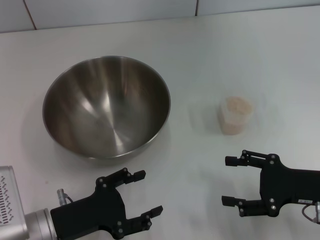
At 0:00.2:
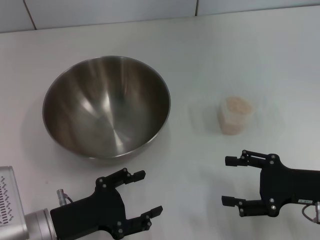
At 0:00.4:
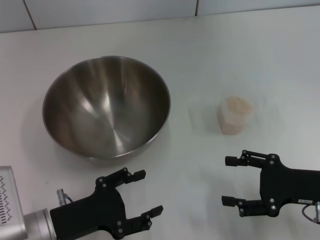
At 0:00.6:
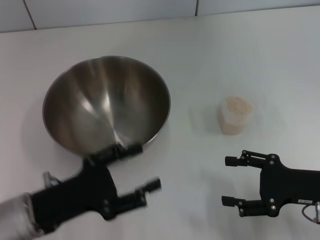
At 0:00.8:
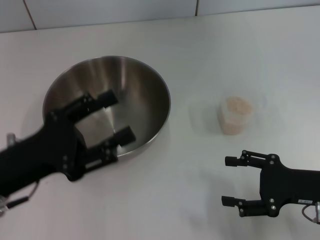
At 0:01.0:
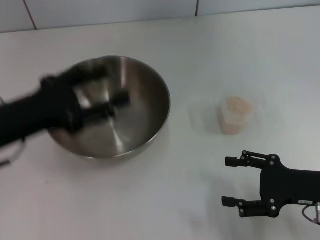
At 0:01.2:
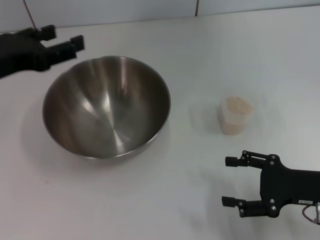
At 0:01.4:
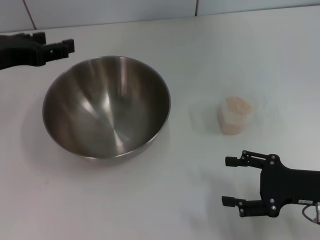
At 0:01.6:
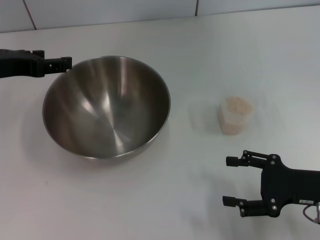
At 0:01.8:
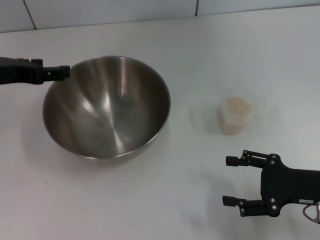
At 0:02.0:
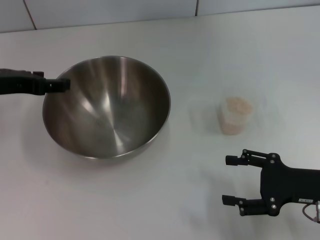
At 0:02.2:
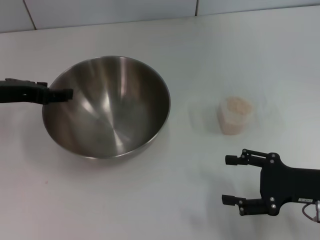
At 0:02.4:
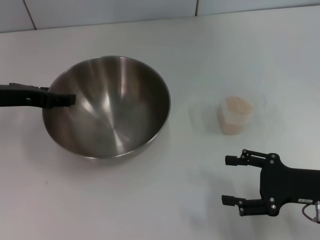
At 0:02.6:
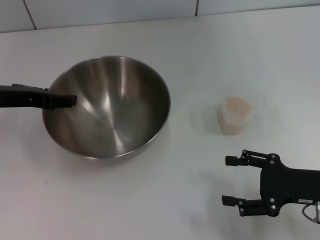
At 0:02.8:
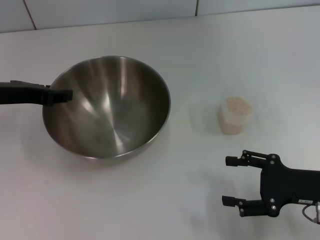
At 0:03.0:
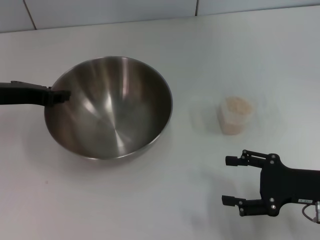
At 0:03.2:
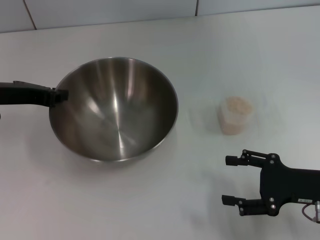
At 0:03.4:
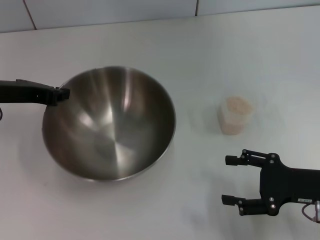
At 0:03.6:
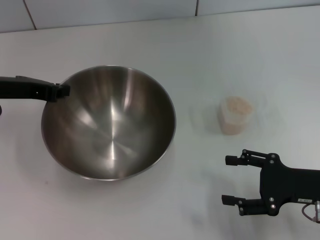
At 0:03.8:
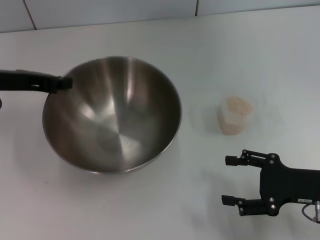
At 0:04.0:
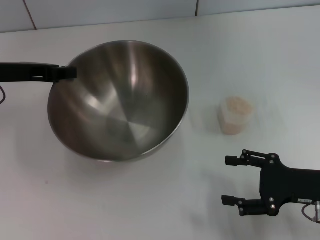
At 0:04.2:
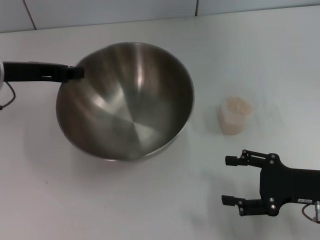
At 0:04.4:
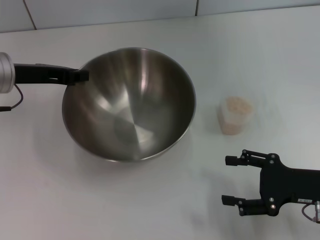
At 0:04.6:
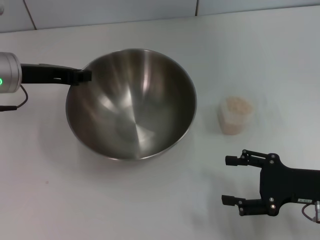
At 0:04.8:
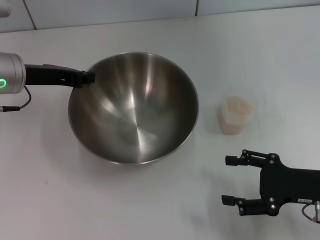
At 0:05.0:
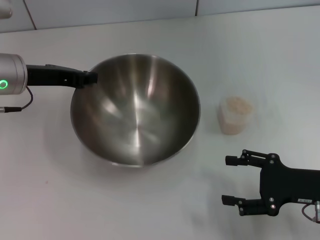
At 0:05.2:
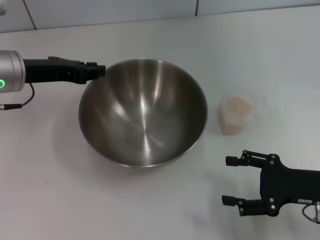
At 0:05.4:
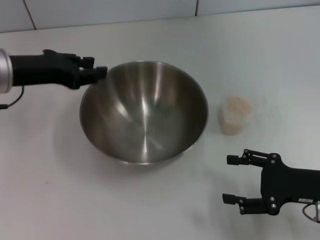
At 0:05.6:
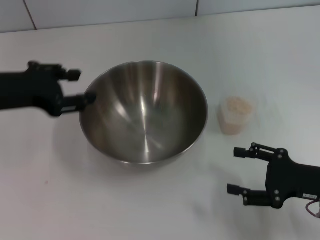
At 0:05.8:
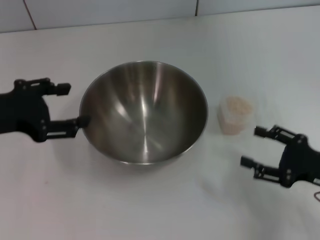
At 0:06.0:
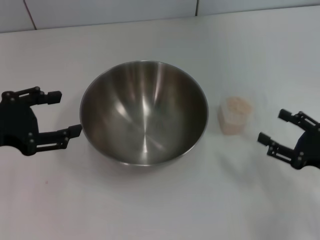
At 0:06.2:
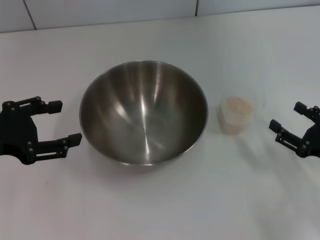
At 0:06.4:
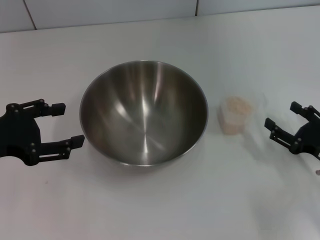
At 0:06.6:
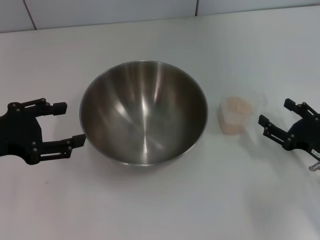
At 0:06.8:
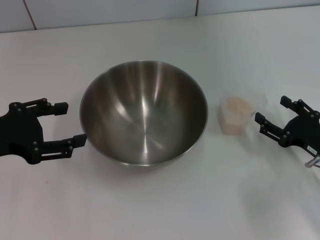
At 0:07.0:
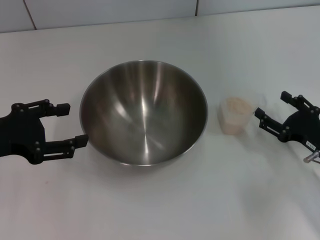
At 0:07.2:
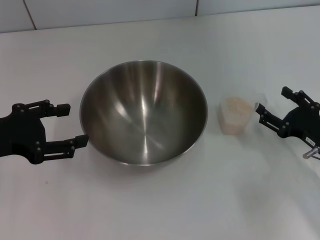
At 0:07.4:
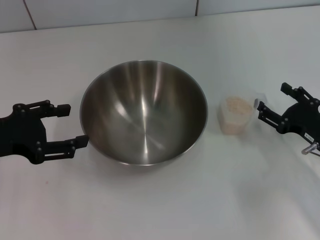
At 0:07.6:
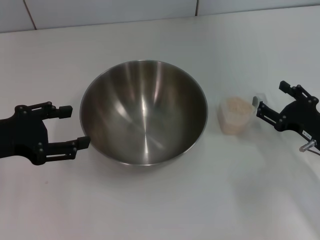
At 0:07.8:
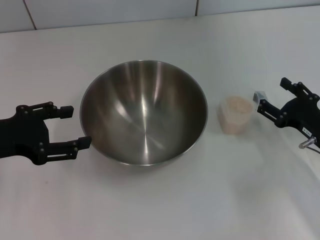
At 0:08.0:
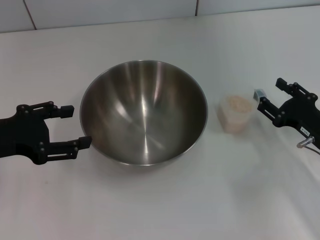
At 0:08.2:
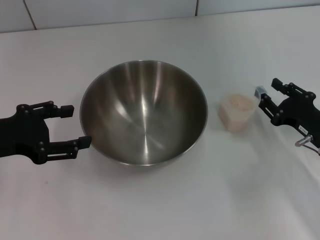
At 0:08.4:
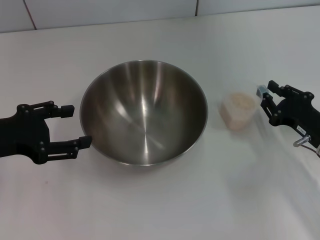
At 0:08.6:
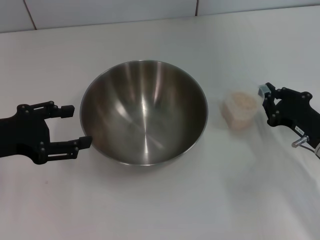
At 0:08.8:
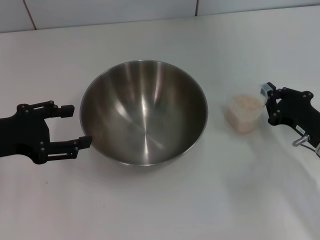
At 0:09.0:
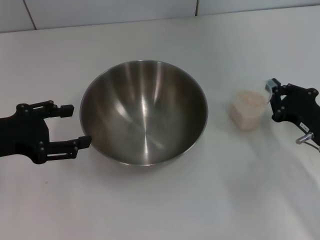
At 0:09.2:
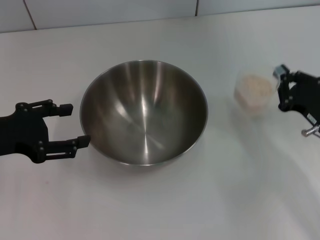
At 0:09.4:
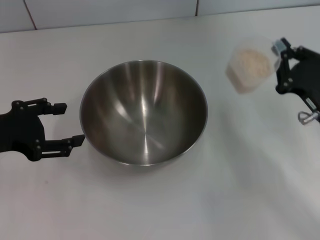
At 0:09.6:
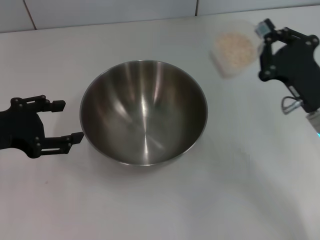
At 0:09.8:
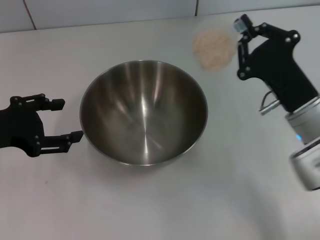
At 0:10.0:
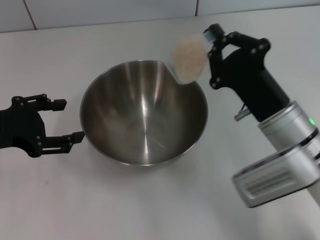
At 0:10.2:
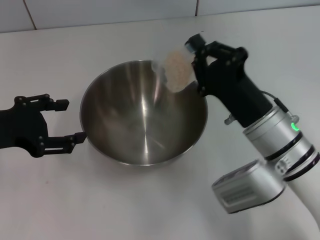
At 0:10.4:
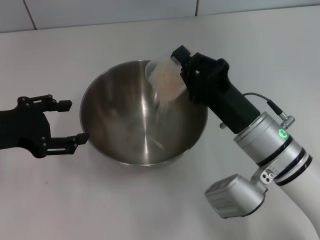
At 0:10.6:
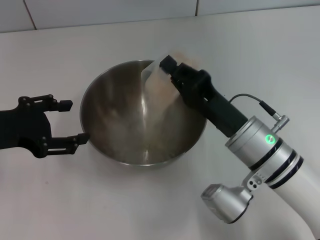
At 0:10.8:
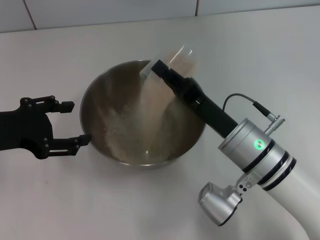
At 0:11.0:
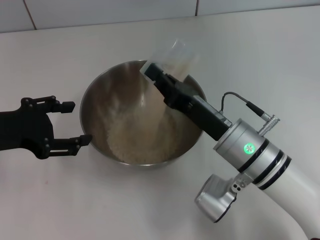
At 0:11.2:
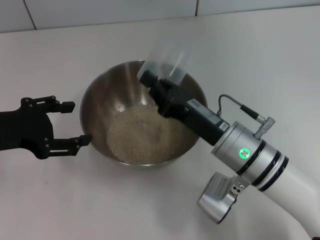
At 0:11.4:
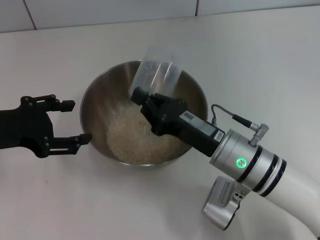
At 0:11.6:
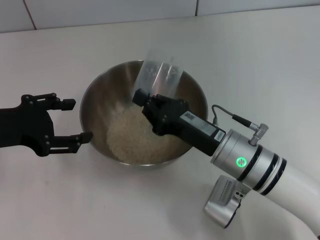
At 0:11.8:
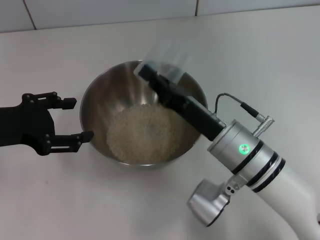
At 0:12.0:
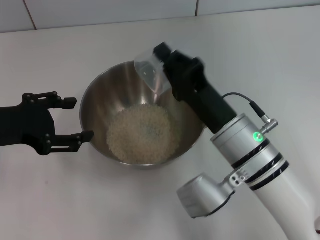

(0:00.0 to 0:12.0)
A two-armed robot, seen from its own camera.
Task of the whole recording: Place the bowl in the middle of the table with one hand and pour the rice from the grain cup into it with the other hand.
Step, 0:00.0 - 0:03.6: Pick up the bowl with the left gripper.
Step, 0:03.8 - 0:05.2: Place the bowl in the center of view with the left gripper.
Step, 0:05.4 - 0:09.2: Pick up the cup with rice in it with the right gripper.
Step, 0:09.4 - 0:12.0: Pour the rice from the cup into the bowl with the right gripper.
0:00.0 - 0:01.6: The left gripper is displaced upward and forward by roughly 20 cm.
0:01.6 - 0:03.0: The grippers make only small movements.
0:03.0 - 0:04.4: The left gripper closes.
0:04.4 - 0:06.0: The left gripper travels backward by some 10 cm, and opens.
0:06.0 - 0:07.6: The right gripper goes approximately 5 cm forward.
0:07.6 - 0:09.0: The right gripper closes its fingers.
0:09.0 - 0:10.4: The right gripper heads to the left, covering some 15 cm.

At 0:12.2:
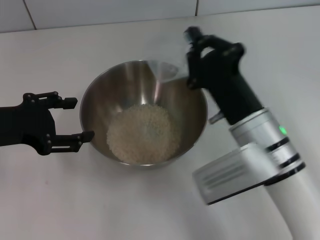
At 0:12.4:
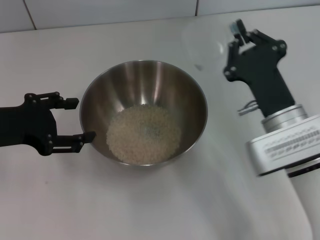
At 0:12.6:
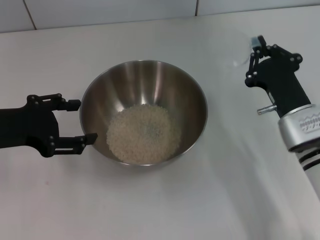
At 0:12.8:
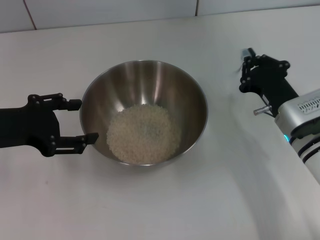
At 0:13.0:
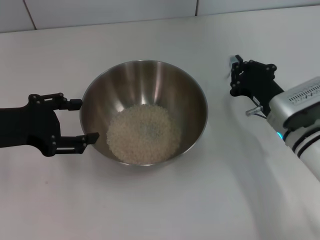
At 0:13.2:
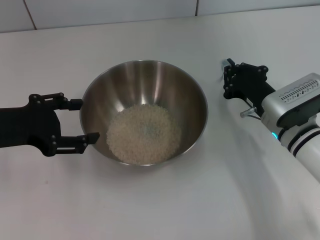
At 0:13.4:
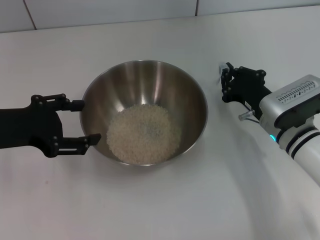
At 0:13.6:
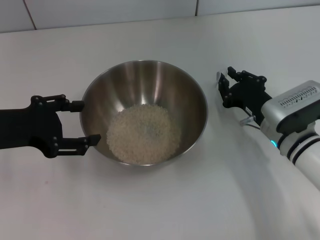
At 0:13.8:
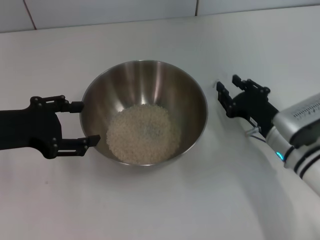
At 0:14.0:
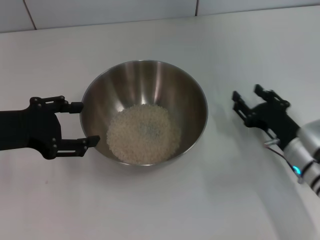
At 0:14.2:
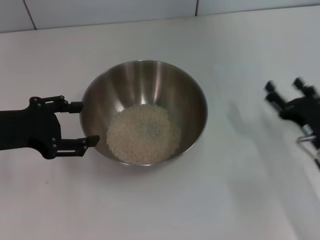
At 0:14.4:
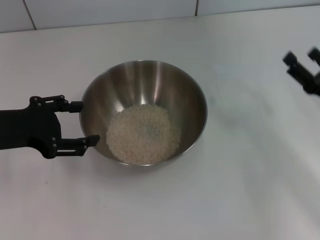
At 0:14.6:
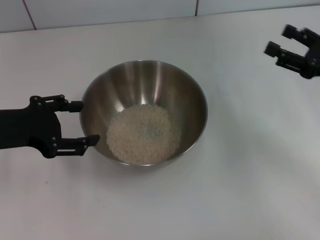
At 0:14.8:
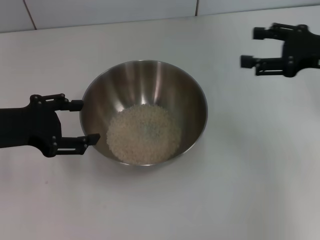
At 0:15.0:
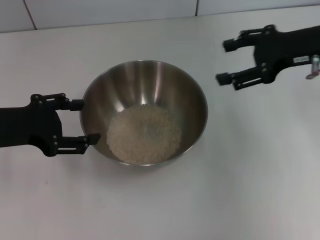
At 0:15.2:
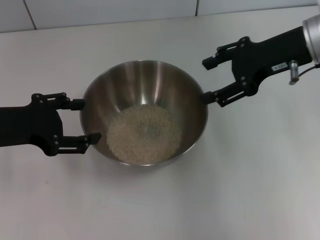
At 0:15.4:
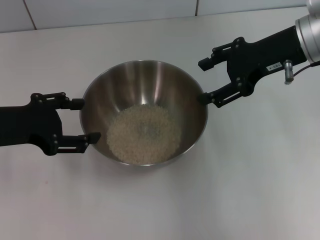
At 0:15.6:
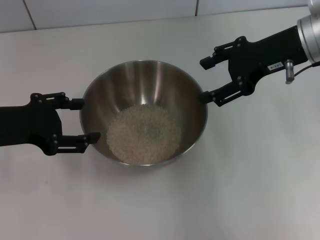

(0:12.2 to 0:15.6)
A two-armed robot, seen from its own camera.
Task of the whole recording: Place the bowl in the middle of the table with one hand and pour the rice from the grain cup into it with the other hand.
Step, 0:12.2 - 0:13.8: Place the cup on the table with the right gripper.
0:12.2 - 0:13.8: The right gripper heads to the right and downward, covering approximately 10 cm.
0:13.8 - 0:15.6: The right gripper shifts some 20 cm upward, and opens.
